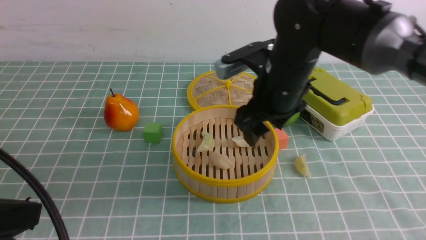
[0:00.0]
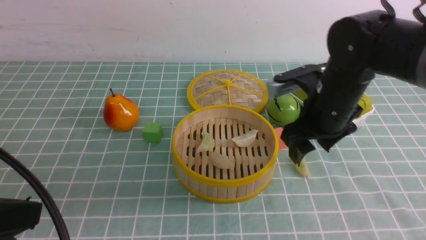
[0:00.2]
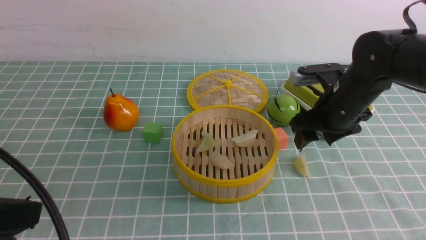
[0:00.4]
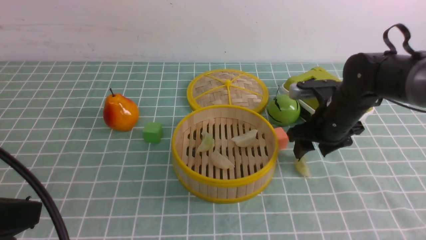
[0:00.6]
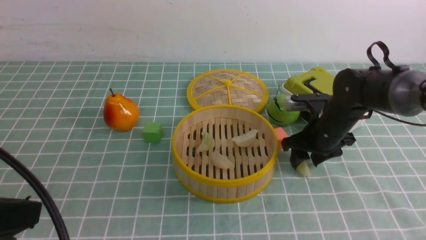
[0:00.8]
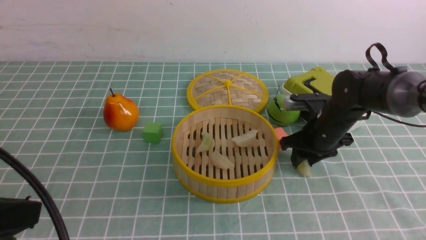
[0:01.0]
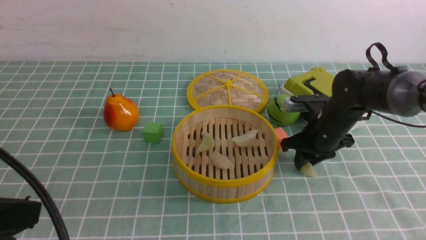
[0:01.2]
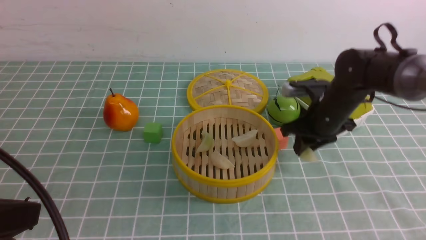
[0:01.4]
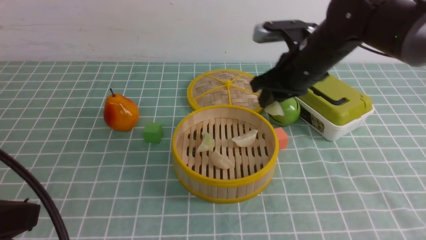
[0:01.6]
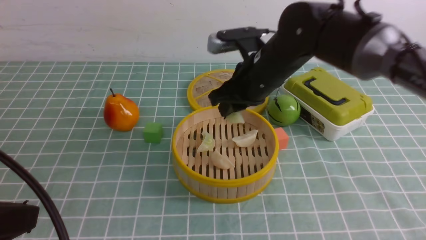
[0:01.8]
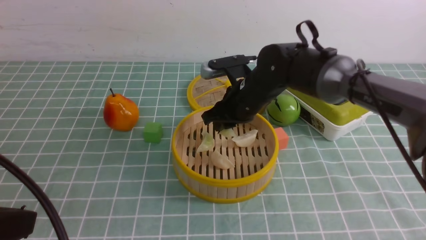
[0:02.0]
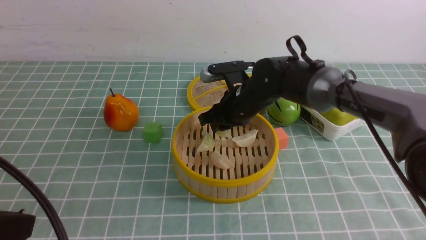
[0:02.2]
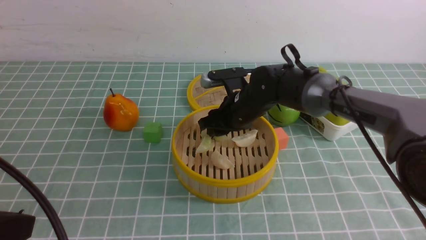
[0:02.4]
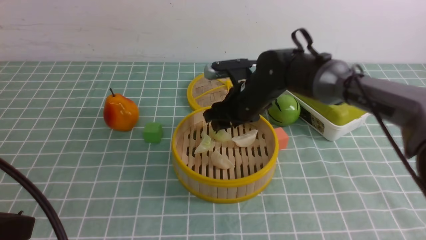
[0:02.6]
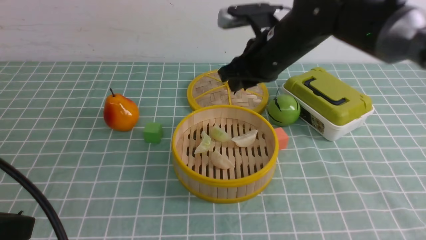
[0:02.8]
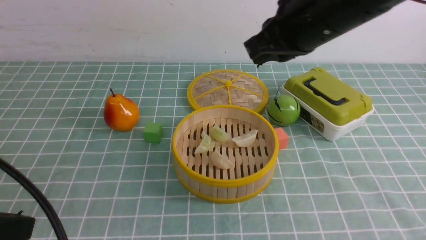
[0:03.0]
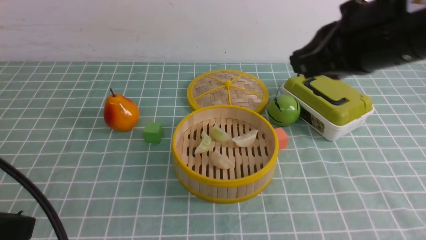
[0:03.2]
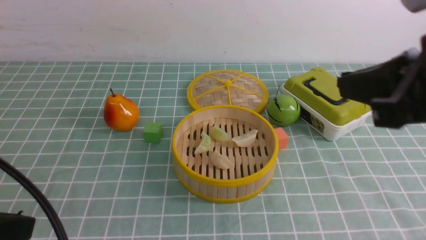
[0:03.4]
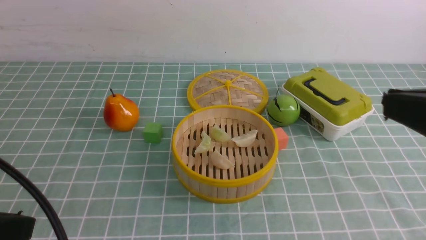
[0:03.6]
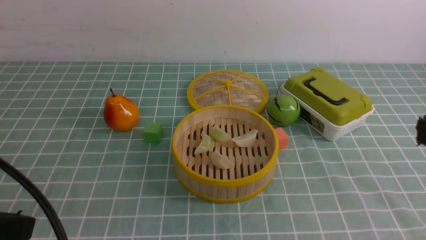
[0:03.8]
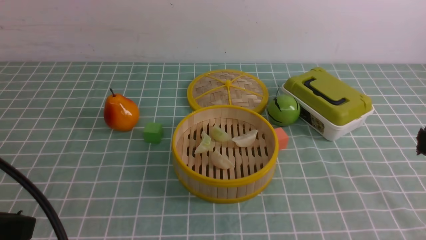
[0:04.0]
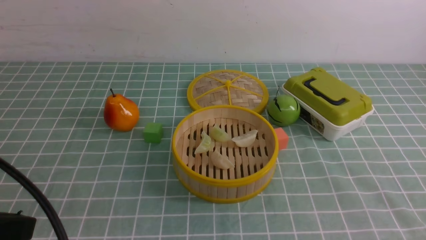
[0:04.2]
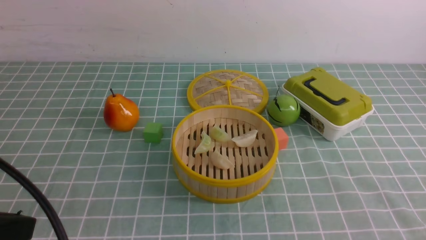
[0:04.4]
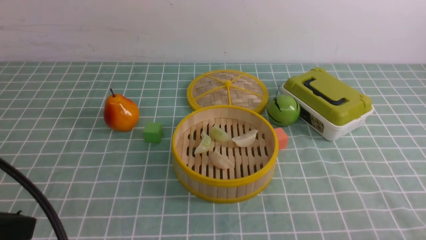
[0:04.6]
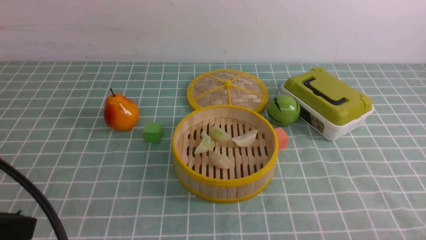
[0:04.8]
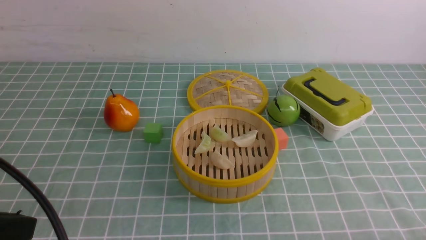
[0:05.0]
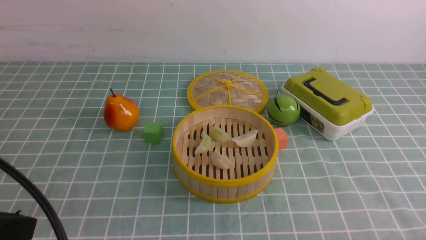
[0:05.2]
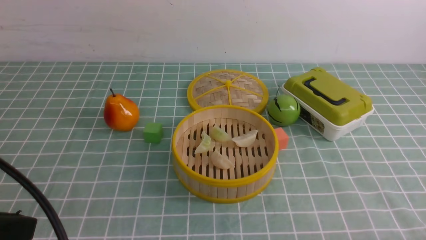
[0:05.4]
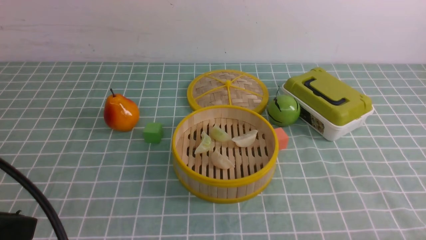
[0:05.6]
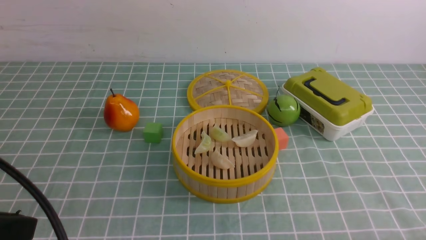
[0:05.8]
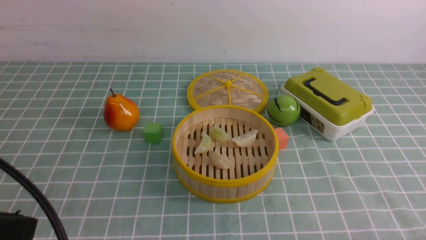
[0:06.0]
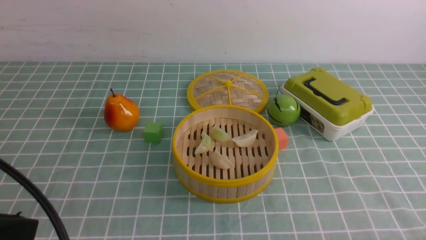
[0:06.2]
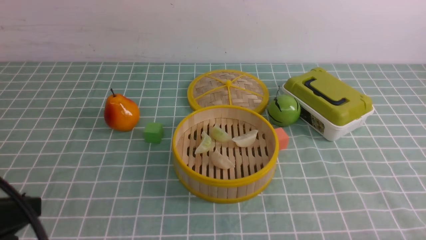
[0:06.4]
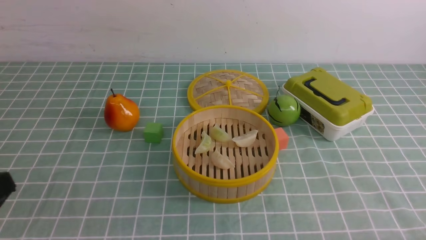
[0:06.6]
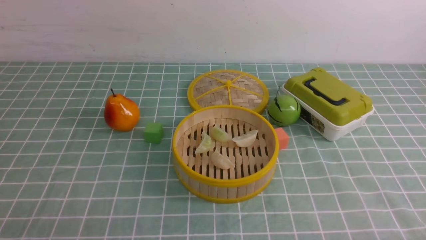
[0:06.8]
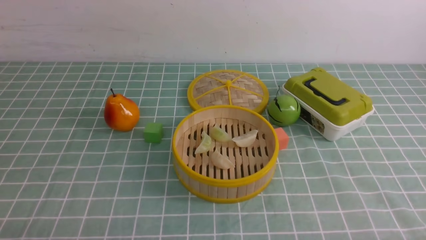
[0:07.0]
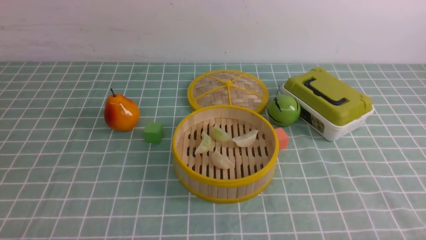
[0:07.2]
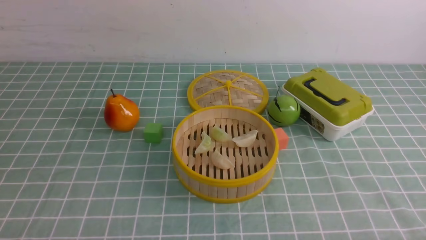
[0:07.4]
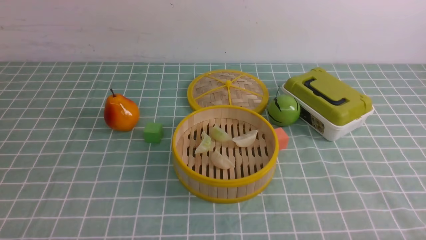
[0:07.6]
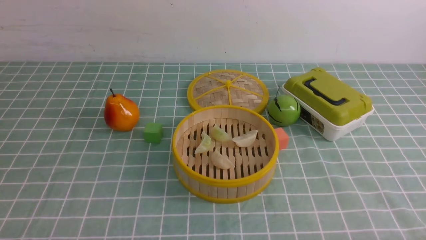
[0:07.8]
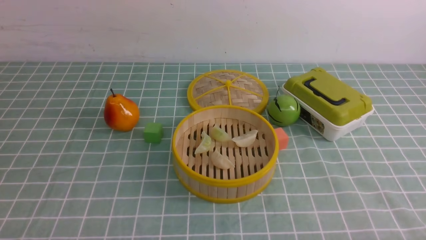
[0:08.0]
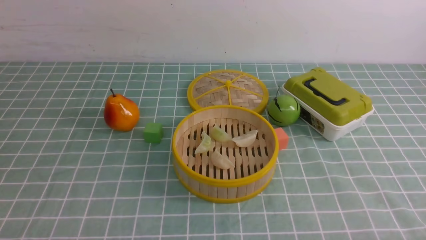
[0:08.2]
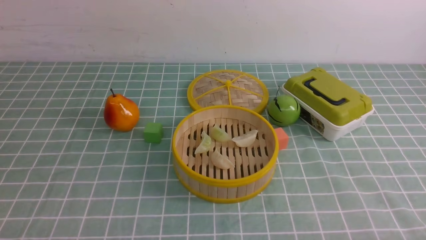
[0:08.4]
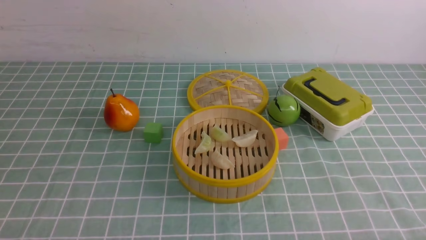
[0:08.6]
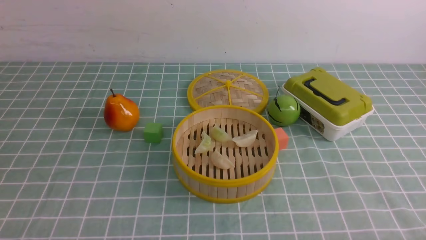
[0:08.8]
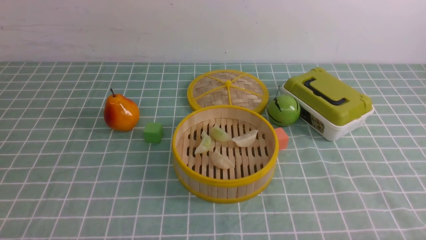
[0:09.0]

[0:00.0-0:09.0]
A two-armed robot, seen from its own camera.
Task of the whole recording: put the dumplings into the steamer on the table with the blue tablecloth.
Step, 0:00.0 to 0:01.6: use the right arm to grab a dumpling.
Step, 0:01.8 to 0:03.0: use the right arm to put the dumpling into the steamer.
0:00.0 to 0:01.6: The right gripper travels downward and back again, some 10 cm each way, and closes its fingers.
0:01.6 to 0:03.0: The right gripper travels upward and backward by approximately 15 cm.
0:03.0 to 0:04.4: The right gripper travels backward, to the right and downward by roughly 30 cm.
0:06.0 to 0:07.6: The left gripper goes some 20 cm downward.
0:07.6 to 0:09.0: The two grippers keep their place.

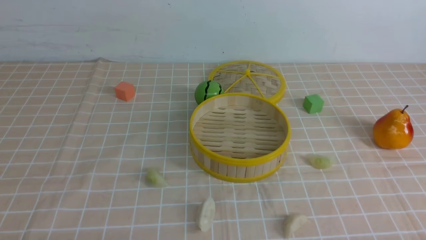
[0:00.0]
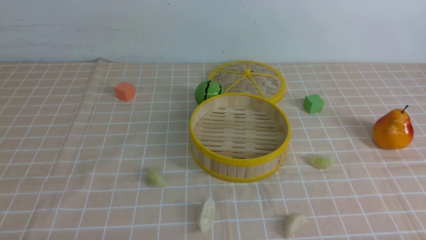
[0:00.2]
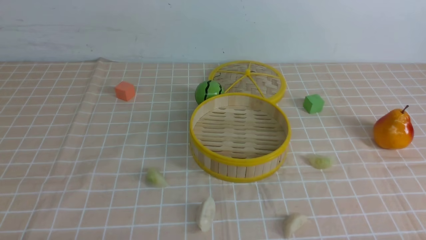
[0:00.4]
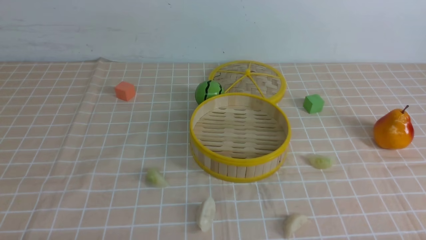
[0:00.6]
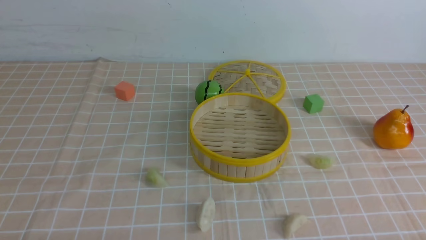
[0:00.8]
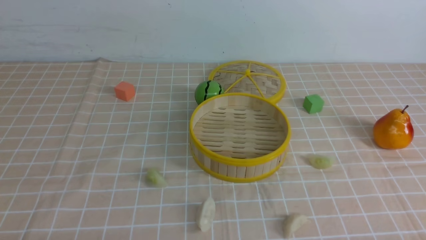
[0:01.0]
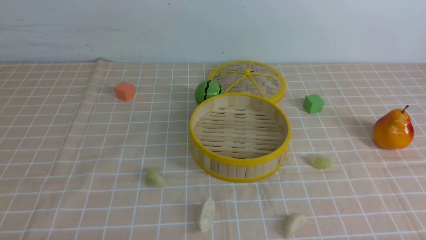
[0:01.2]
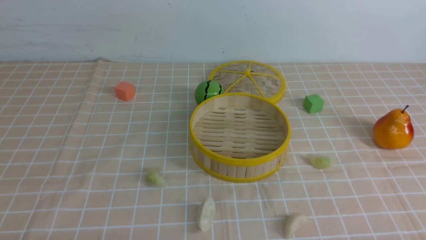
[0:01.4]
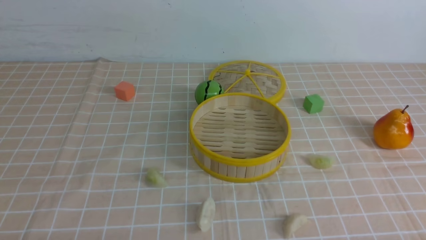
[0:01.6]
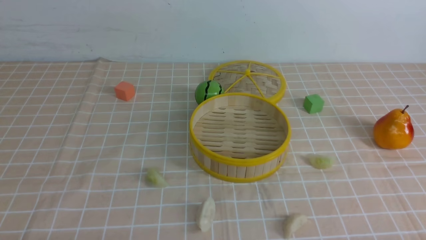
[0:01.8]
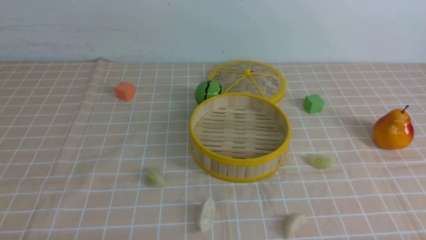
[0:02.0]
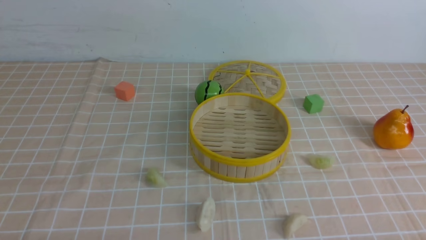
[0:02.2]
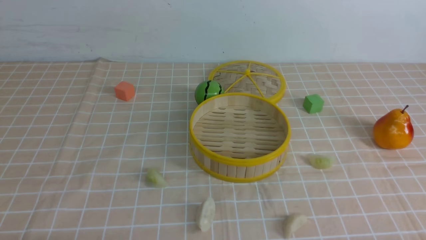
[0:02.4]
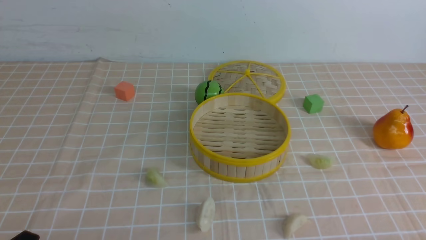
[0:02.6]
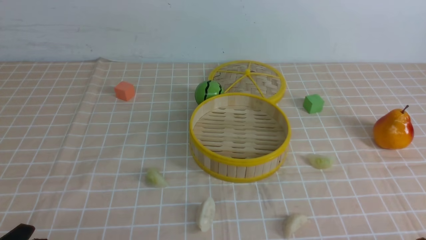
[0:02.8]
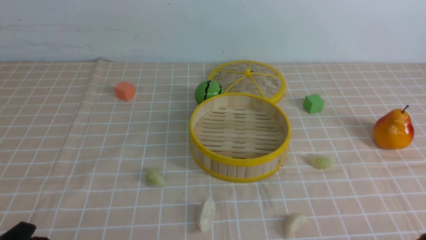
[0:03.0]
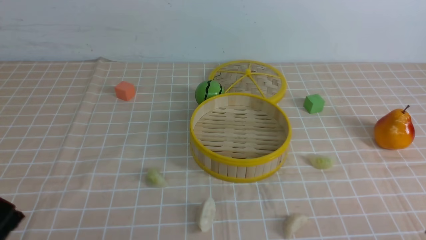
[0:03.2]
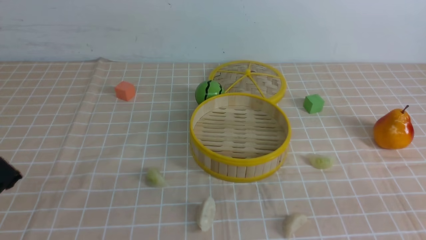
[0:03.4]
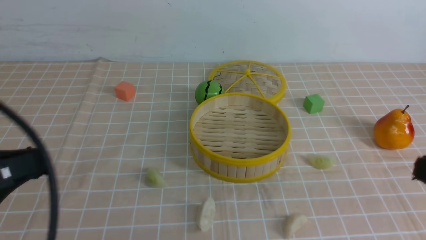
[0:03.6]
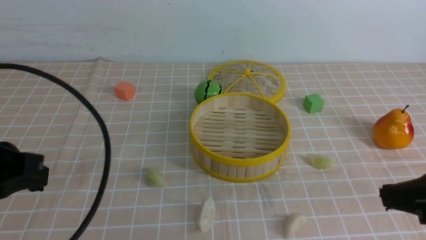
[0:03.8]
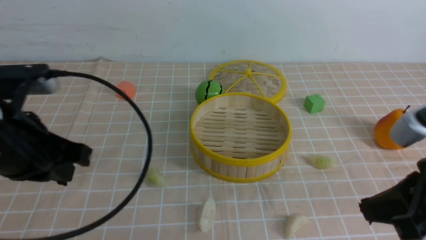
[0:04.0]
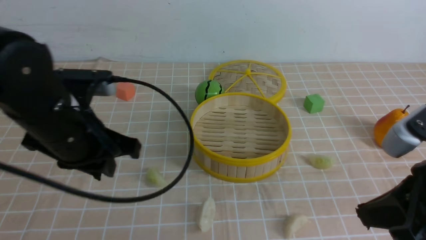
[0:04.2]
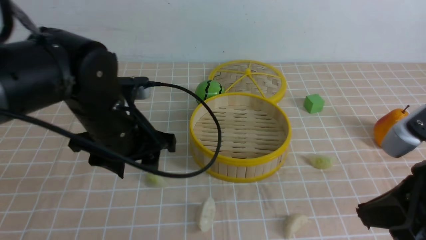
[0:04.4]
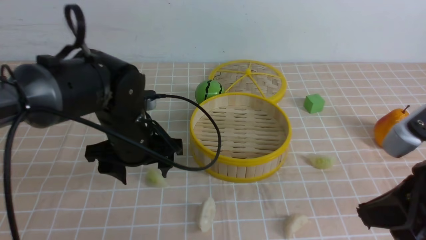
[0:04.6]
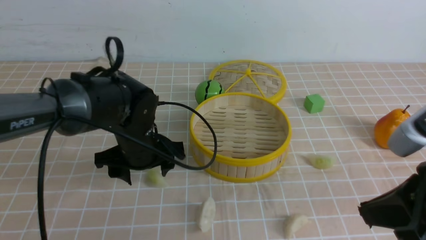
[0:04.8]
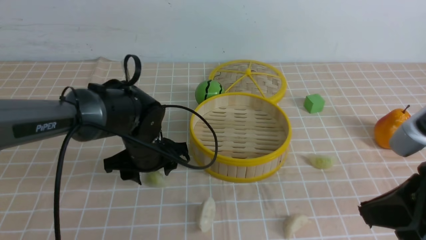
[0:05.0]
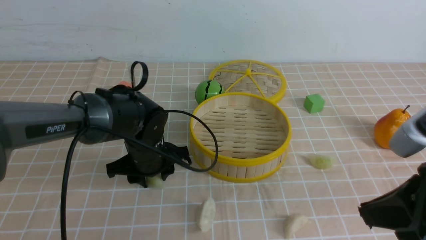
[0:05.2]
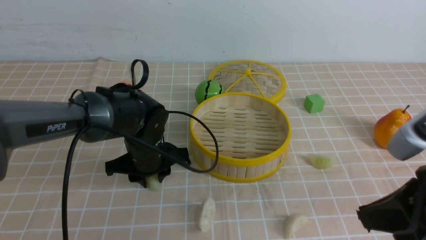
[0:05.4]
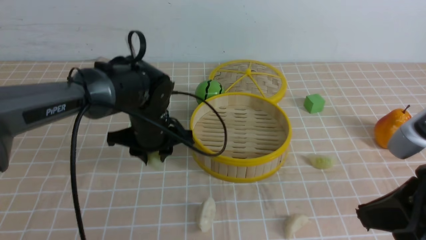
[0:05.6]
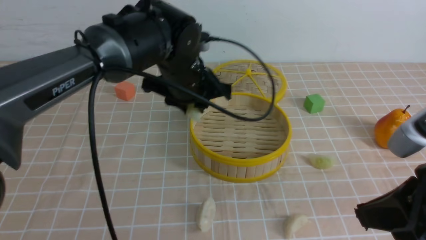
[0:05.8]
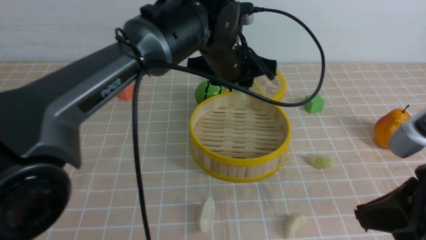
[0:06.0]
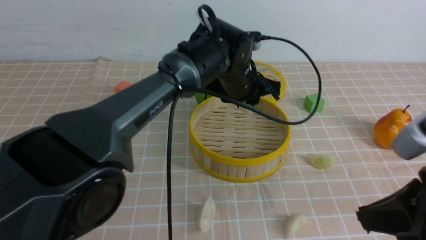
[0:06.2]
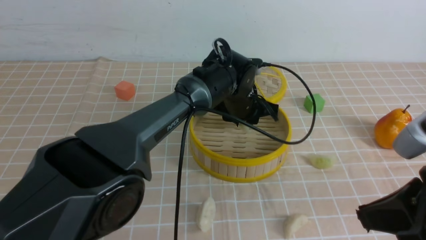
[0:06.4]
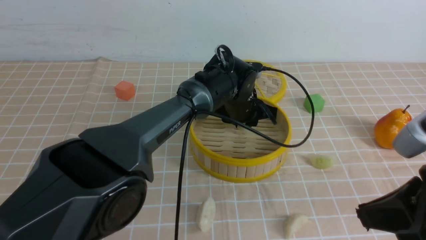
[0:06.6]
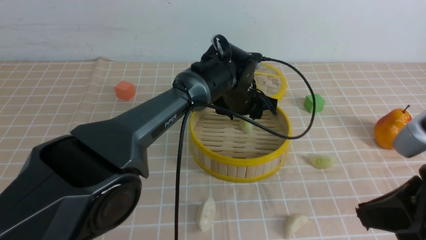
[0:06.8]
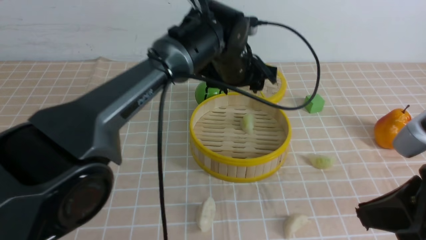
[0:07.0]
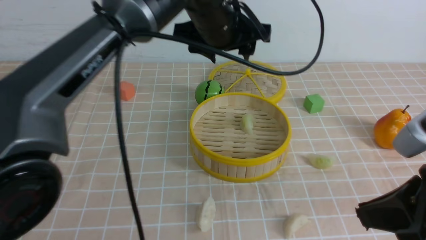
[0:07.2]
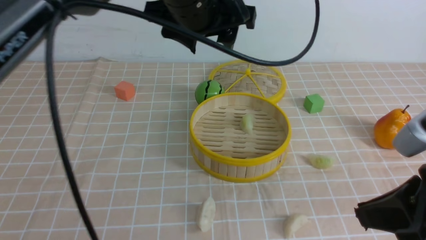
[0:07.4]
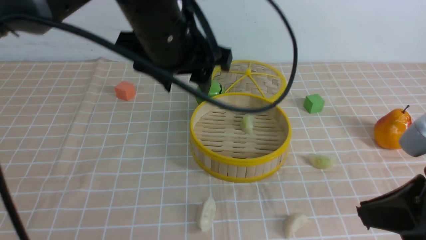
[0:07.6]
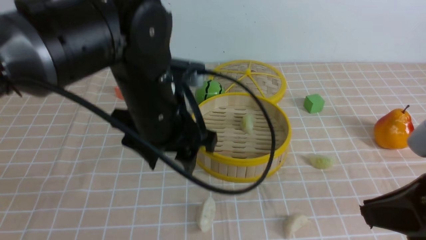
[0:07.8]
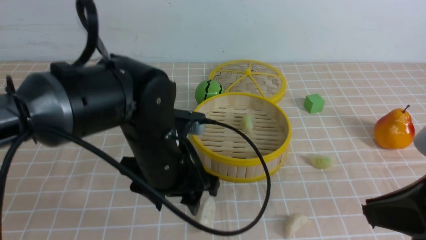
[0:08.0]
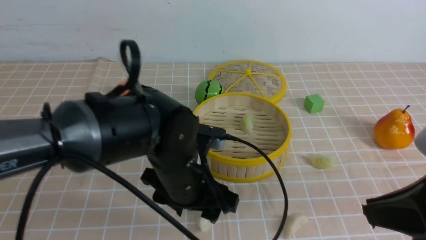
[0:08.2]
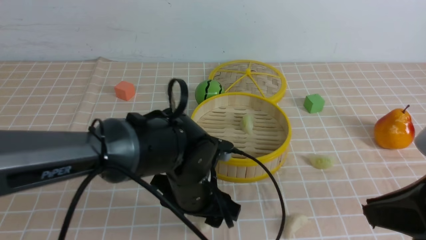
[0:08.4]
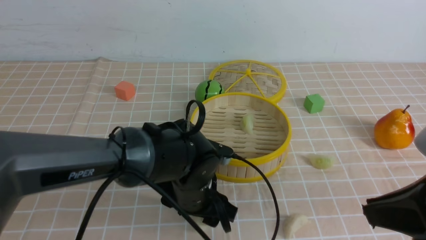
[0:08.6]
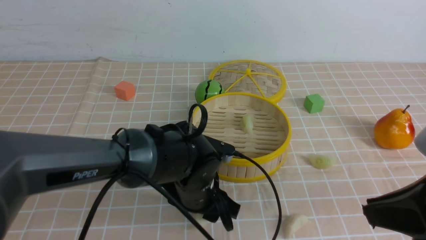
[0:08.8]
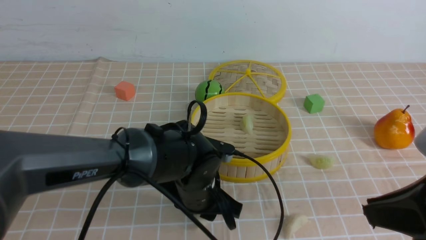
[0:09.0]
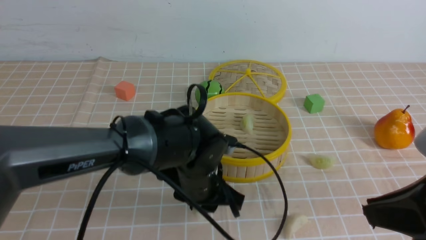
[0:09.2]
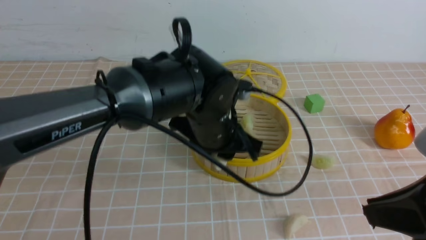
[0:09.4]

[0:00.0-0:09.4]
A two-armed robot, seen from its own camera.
Task of the whole recording: put the dumplings into the steamer on the table with the brown tablecloth.
Step, 0:00.0 to 0:05.2: use the left arm to grab a dumpling.
Step, 0:05.4 to 0:06.8: use the left arm to put the dumpling into the steamer.
Step, 0:07.0 to 0:08.8: use the left arm to grab a dumpling.
0:00.0 to 0:01.6: Both grippers stay put.
0:01.6 to 0:03.2: The left gripper travels upward by about 10 cm.
0:03.2 to 0:04.8: The left gripper is displaced forward and to the right by approximately 30 cm, and opens. The right gripper shifts roughly 15 cm forward, upward and to the left.
0:04.8 to 0:06.2: The left gripper heads to the right and forward, covering about 20 cm, and closes.
0:06.2 to 0:07.8: The left gripper moves up and down over about 20 cm, changing direction 2 times, and opens its fingers.
0:07.8 to 0:09.4: The left gripper goes roughly 5 cm to the right, goes downward and returns, approximately 15 cm each way, and closes up.
